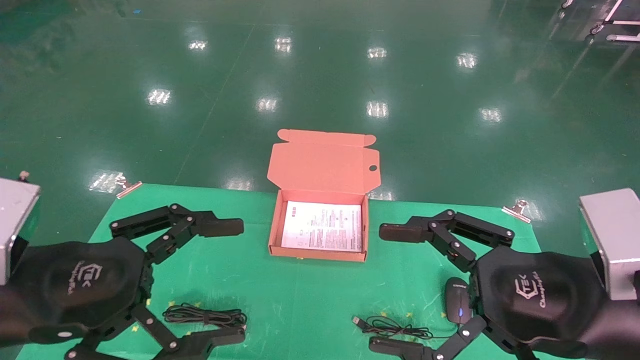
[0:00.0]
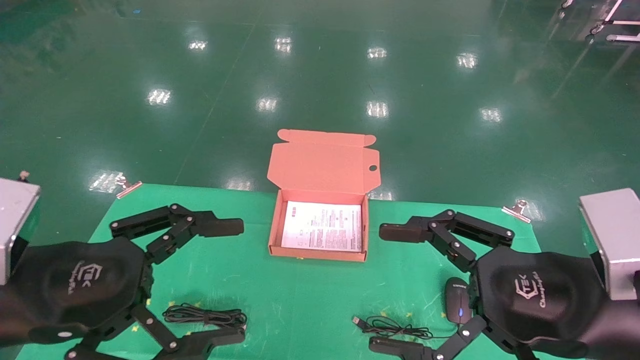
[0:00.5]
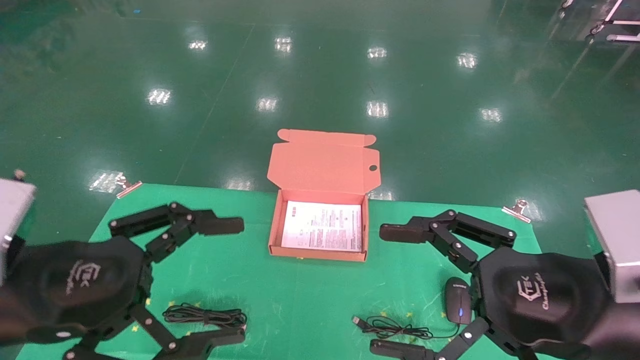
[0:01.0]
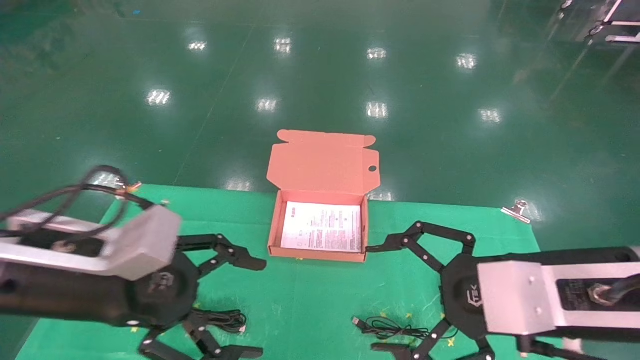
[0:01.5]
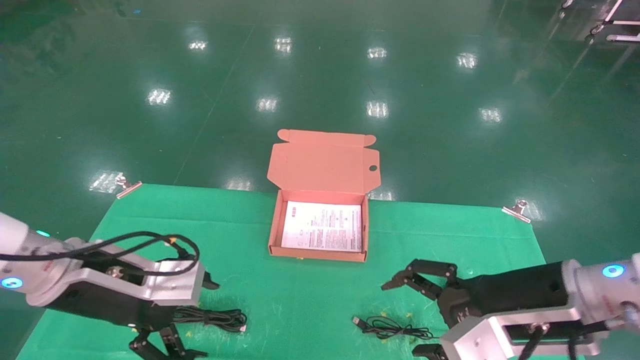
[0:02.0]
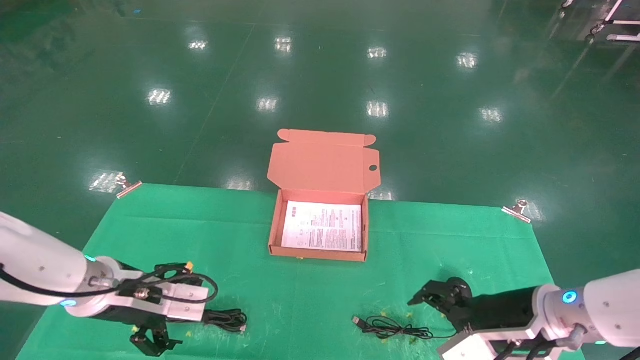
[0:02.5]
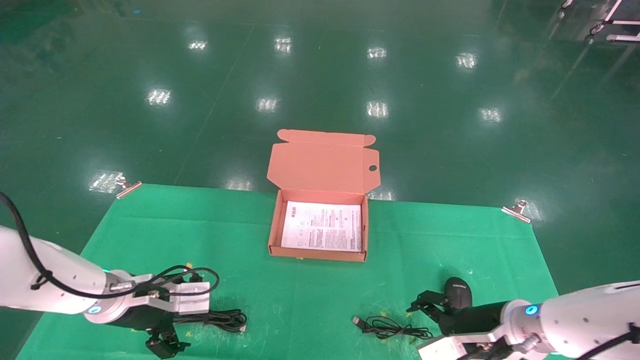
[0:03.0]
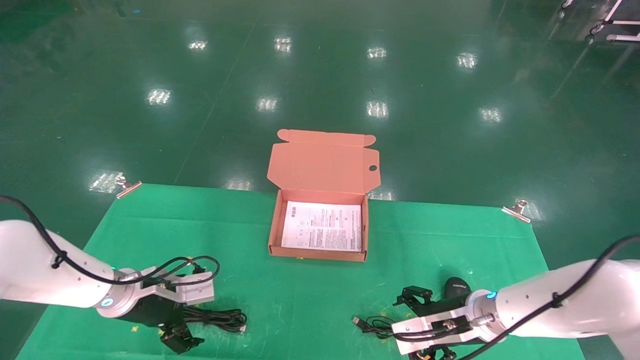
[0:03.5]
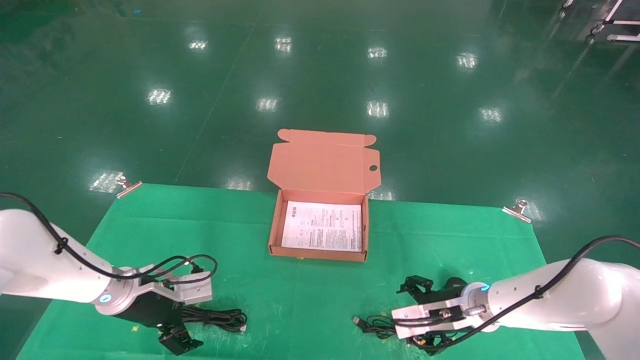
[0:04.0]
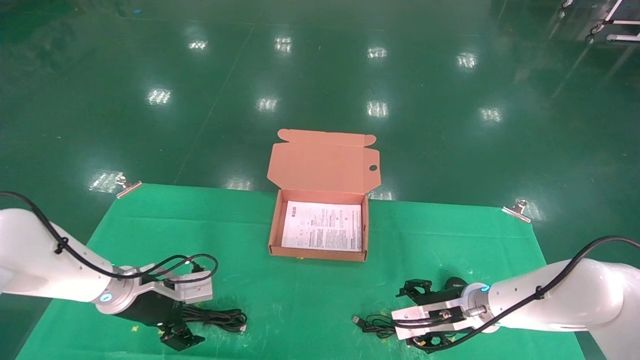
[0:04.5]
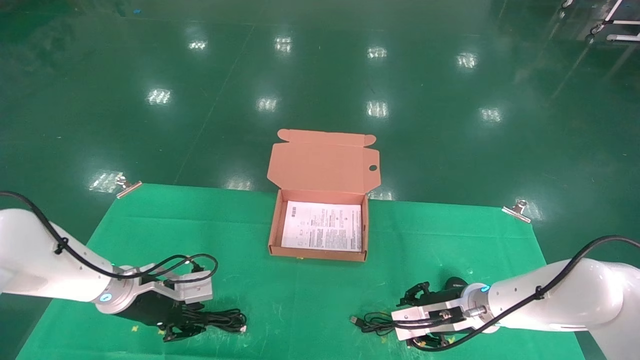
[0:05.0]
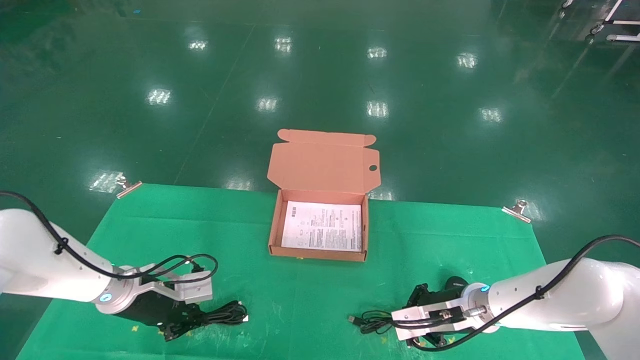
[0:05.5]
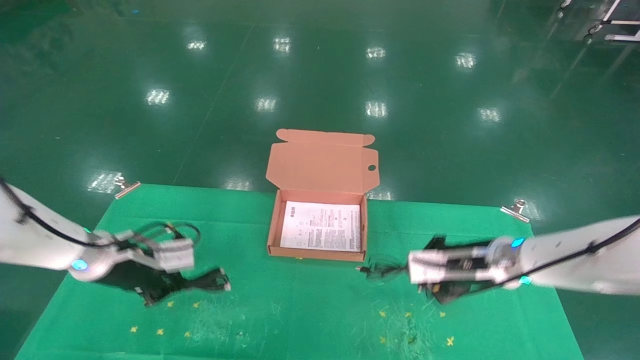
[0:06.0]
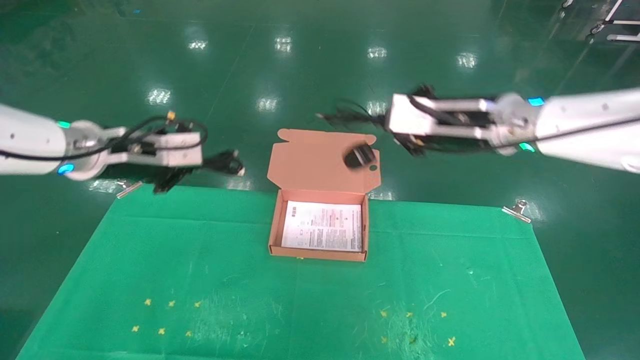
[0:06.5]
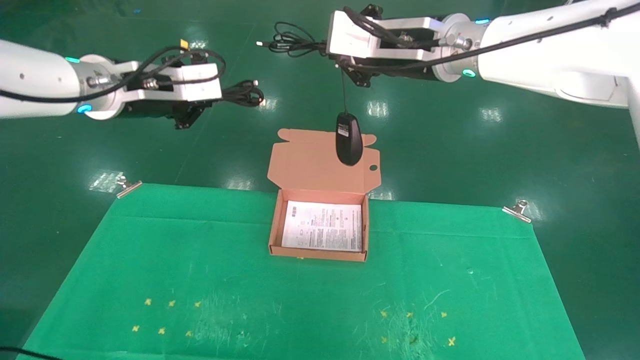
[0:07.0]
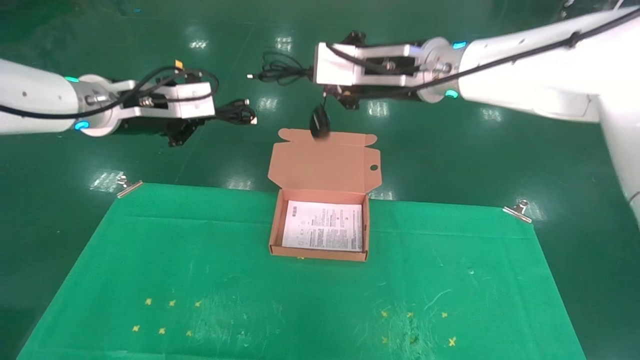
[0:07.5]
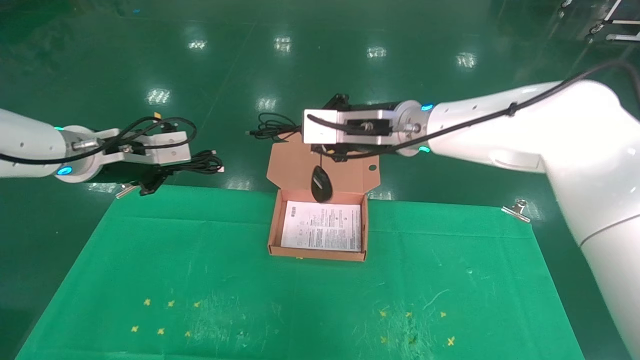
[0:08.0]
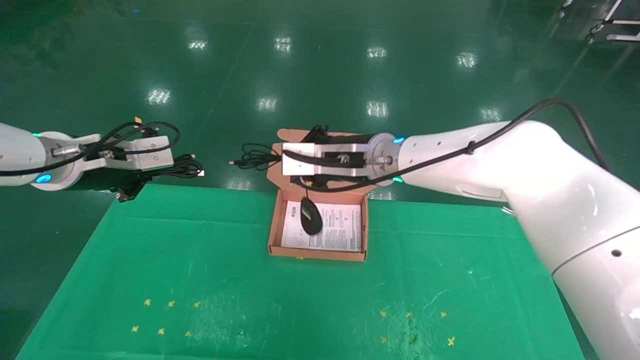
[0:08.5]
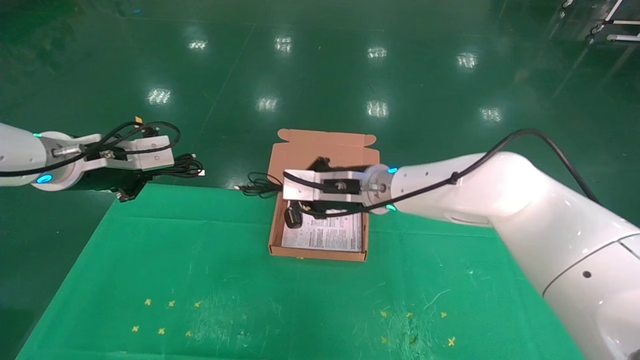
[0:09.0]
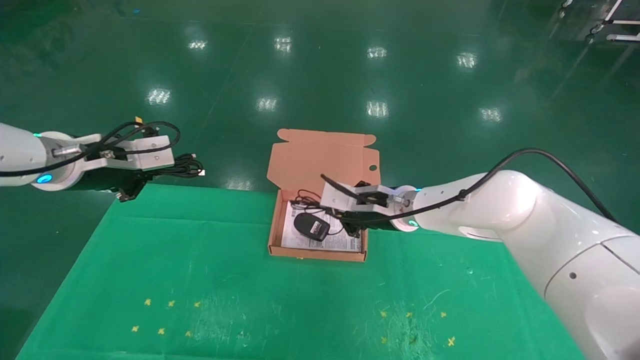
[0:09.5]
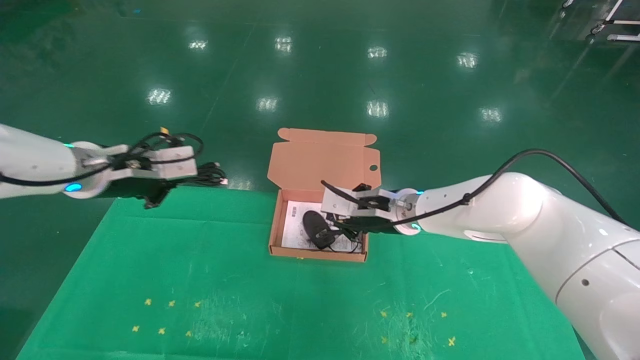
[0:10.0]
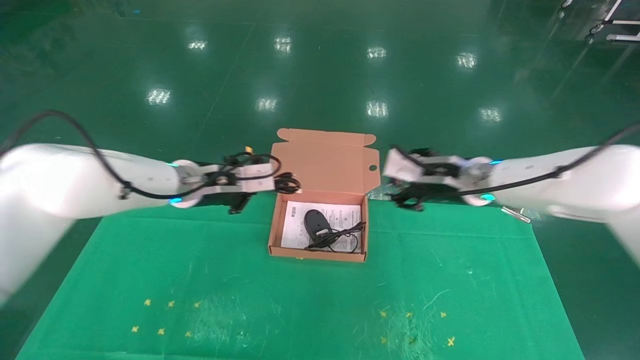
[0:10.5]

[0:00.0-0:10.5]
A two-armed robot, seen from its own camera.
Task of the whole recording: grasp data cable left put into box grasp mouse right put into box.
Step, 0:01.5 to 0:05.5: Grab and pick up both the mouse and power cord from the accessory packaging area at the same time.
0:00.0 to 0:02.0: Both grippers move forward, roughly 10 cm.
0:02.0 to 0:04.0: Both grippers travel together forward and downward, about 20 cm.
0:04.0 to 0:06.5: Both grippers move upward, about 25 cm. The right gripper closes. The left gripper closes.
0:06.5 to 0:08.5: The right gripper travels to the left by roughly 15 cm, while the left gripper goes upward and returns, approximately 10 cm each way.
0:08.5 to 0:10.5: The left gripper is displaced to the right, forward and downward by about 15 cm. The right gripper moves to the right and downward, some 15 cm, and opens up.

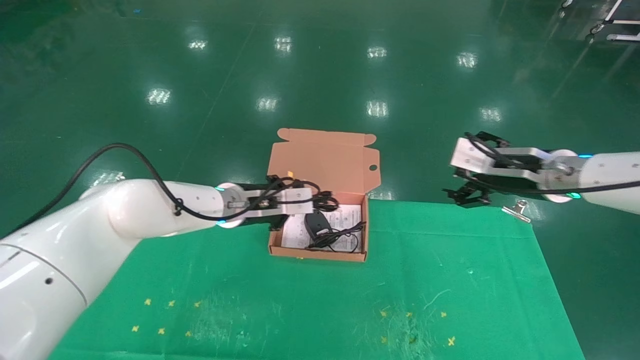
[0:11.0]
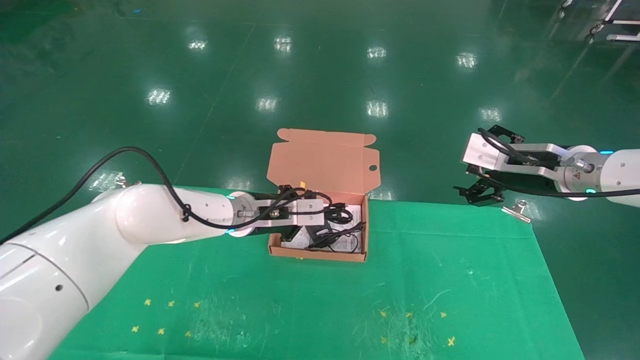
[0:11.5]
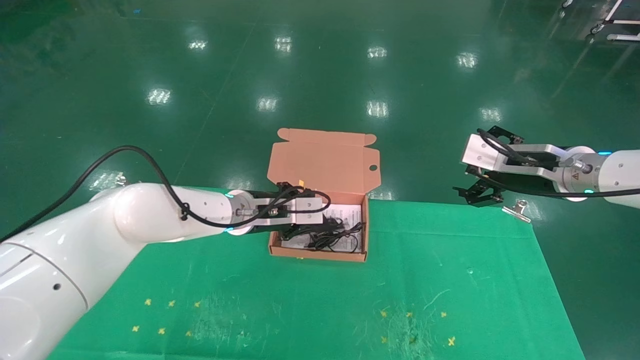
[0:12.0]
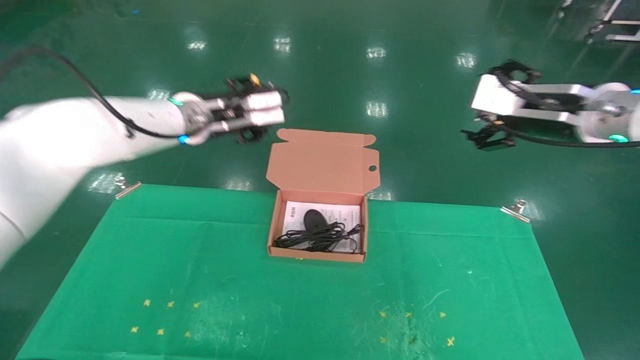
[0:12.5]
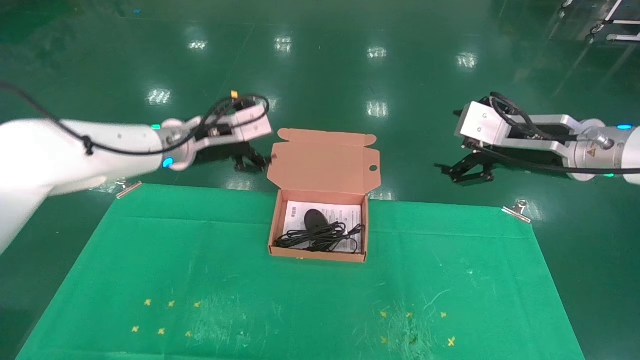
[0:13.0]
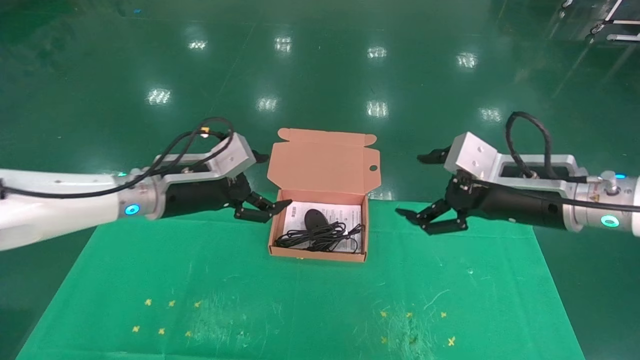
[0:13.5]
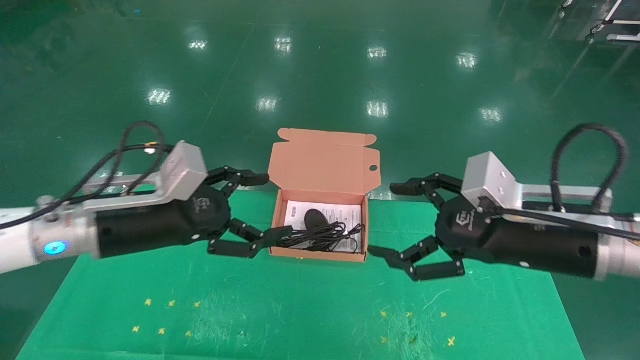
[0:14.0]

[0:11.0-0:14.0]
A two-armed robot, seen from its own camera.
Task of the whole recording: grasp data cable left put into box grasp mouse right put into box.
0:11.0 to 0:12.5: Both grippers move upward, some 10 cm. The left gripper opens.
0:12.5 to 0:14.0: The left gripper goes some 15 cm backward, downward and to the left, and opens. The right gripper goes roughly 15 cm downward, backward and to the left.
